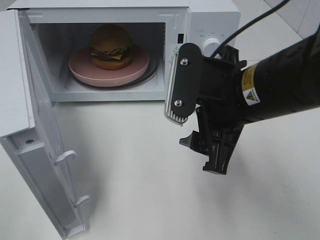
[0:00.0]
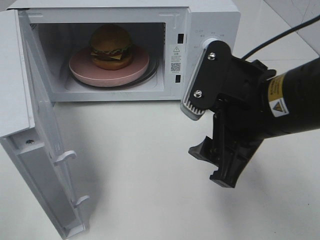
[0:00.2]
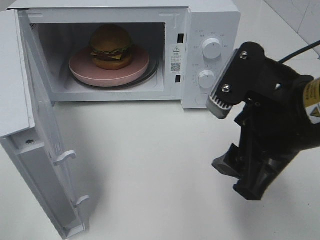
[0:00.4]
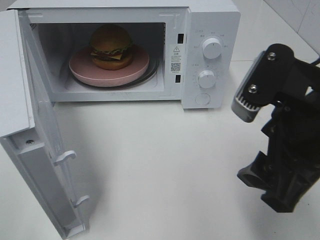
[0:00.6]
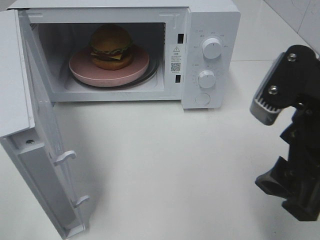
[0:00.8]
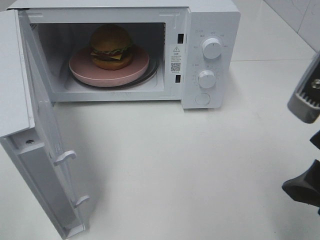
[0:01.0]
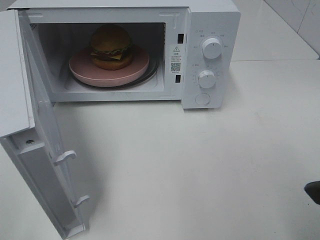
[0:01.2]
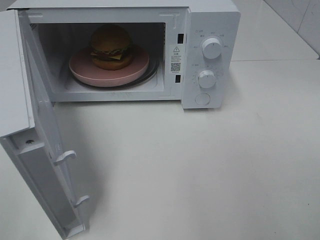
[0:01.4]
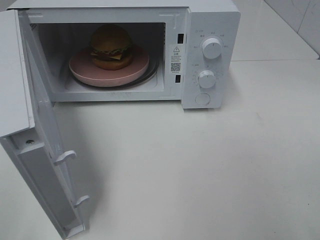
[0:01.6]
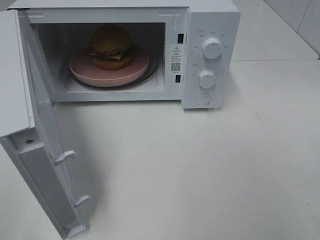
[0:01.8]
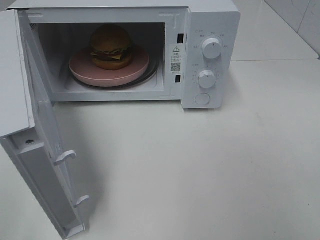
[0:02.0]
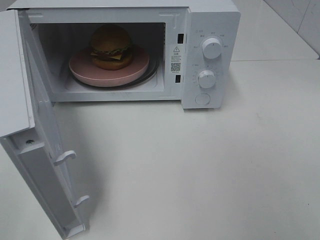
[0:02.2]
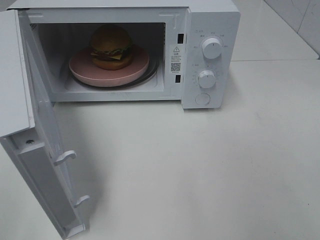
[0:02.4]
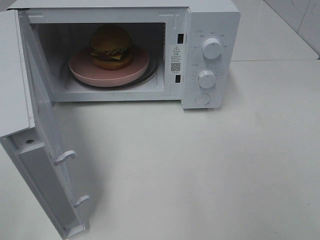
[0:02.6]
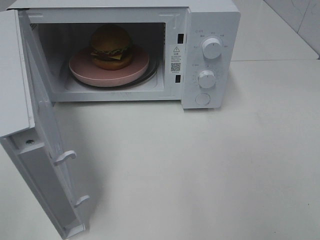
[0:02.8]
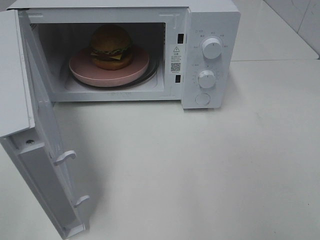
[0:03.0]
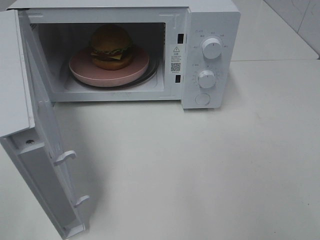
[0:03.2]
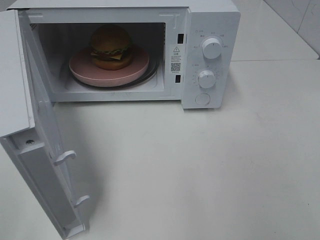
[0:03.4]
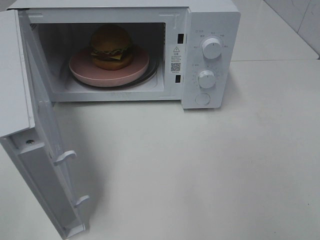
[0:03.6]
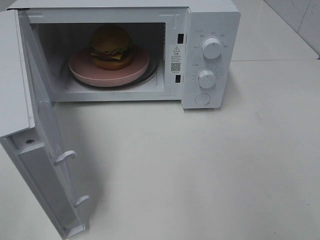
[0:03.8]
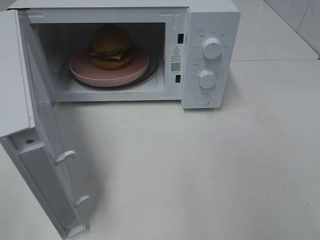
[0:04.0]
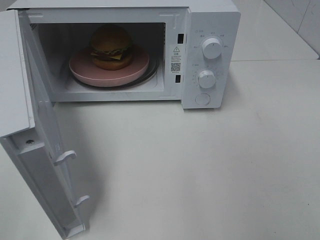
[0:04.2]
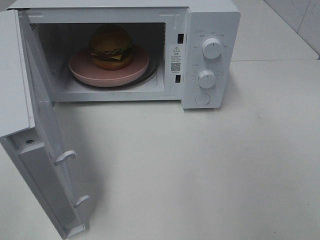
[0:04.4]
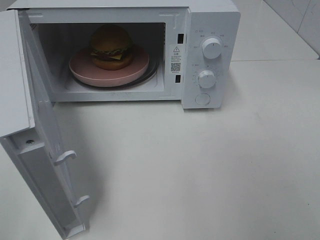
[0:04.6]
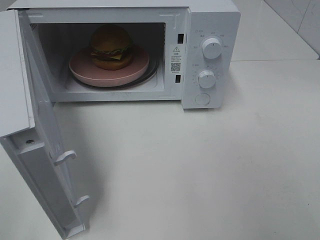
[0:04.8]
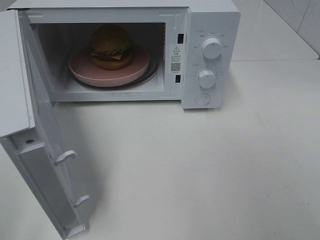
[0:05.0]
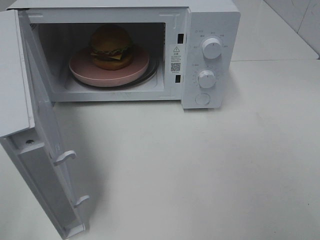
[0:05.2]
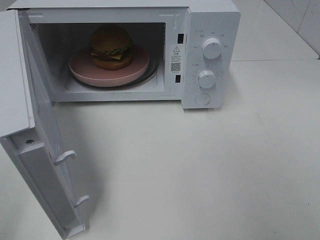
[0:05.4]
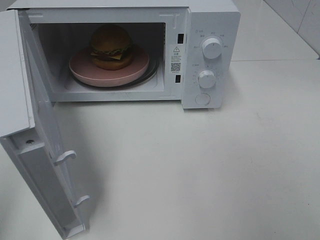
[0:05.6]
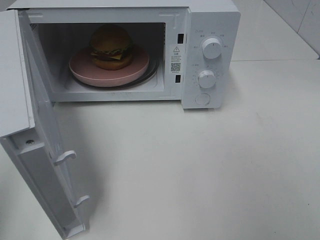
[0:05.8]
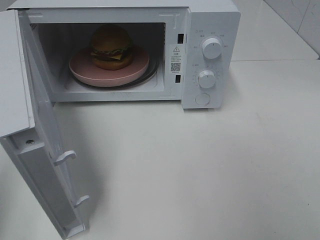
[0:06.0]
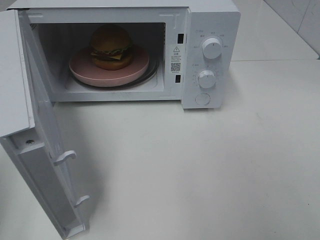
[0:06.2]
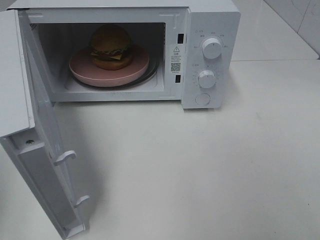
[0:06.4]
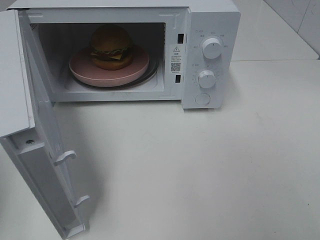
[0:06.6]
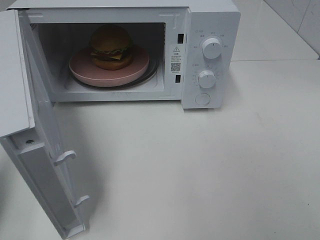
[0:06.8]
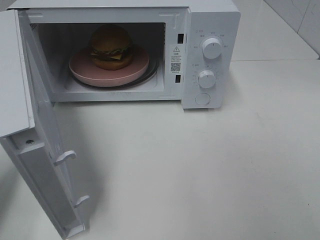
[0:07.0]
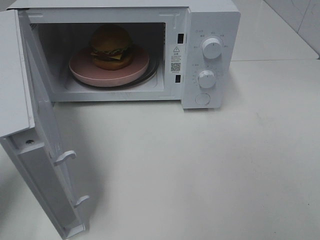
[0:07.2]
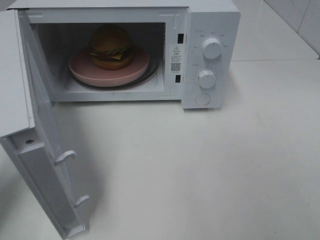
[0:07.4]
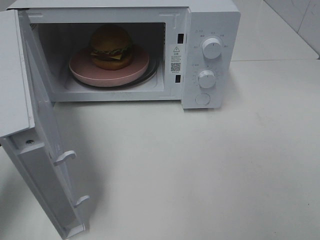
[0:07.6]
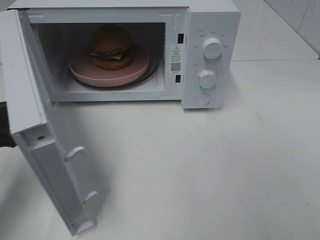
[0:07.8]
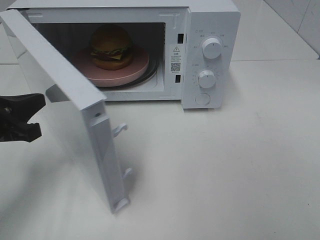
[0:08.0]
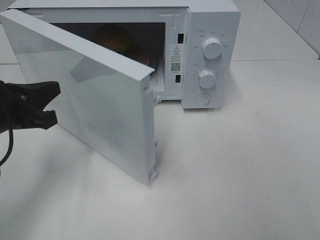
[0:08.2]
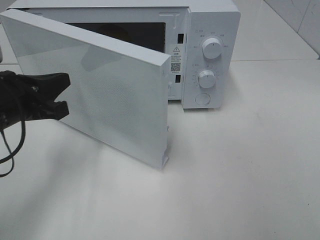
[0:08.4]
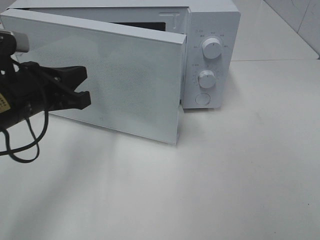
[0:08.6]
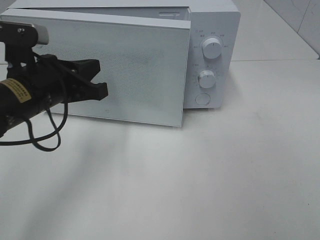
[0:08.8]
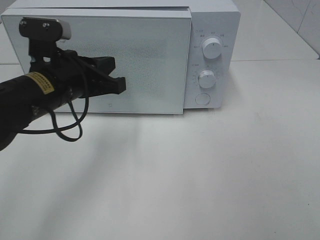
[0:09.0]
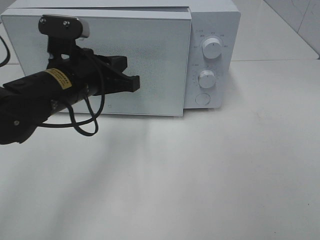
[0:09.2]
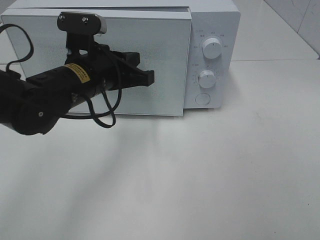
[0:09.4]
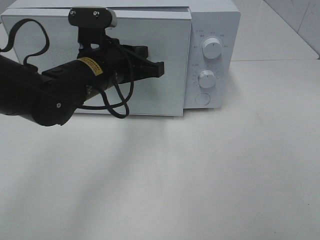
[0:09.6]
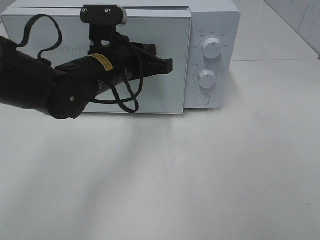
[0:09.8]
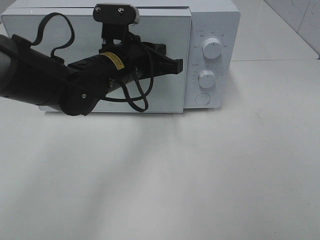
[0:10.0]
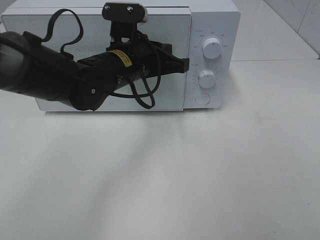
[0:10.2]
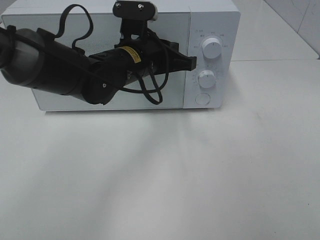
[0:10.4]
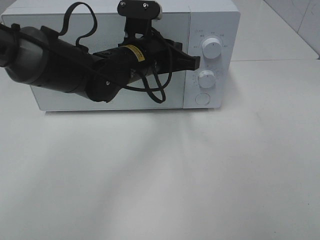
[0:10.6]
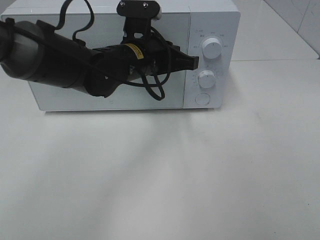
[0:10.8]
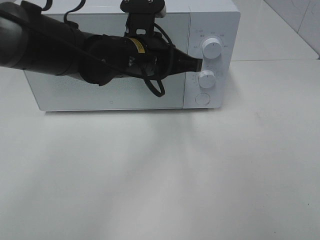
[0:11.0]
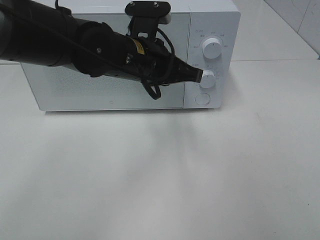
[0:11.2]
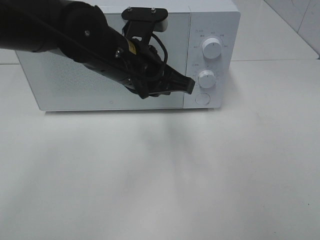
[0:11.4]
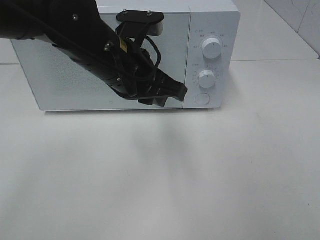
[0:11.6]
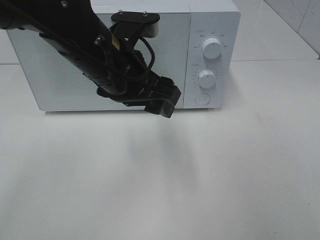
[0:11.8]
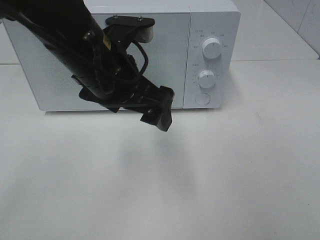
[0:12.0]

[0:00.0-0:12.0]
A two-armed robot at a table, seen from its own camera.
Task of the whole recording: Heat the burger.
Step, 0:00.0 to 0:10.8: Left hand: close the microwave door.
0:00.0 to 0:01.6: The right gripper shifts about 20 cm to the right and backward.
0:03.0 to 0:04.4: The two grippers keep their place.
0:06.0 to 0:07.6: The left gripper heads downward and forward, covering about 15 cm.
0:07.6 to 0:09.0: The left gripper moves to the right and forward, about 15 cm.
0:09.0 to 0:10.4: The left gripper heads to the right and forward, covering approximately 15 cm.
0:10.4 to 0:12.0: The left gripper shifts approximately 10 cm backward and upward, and opens its fingers.

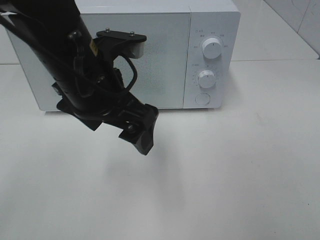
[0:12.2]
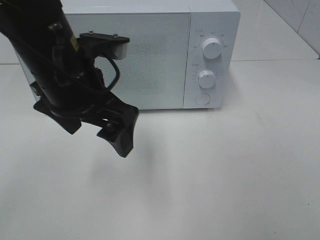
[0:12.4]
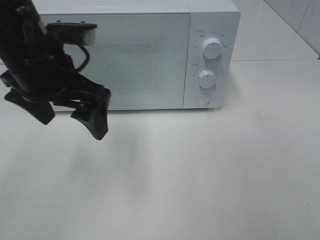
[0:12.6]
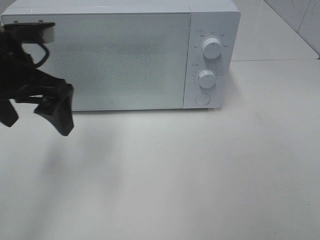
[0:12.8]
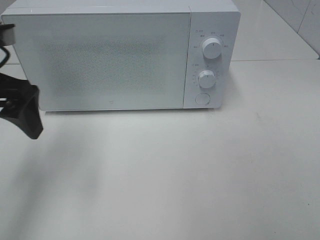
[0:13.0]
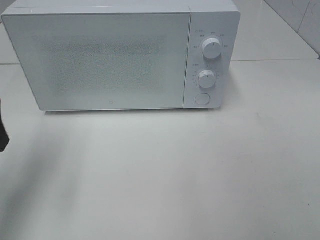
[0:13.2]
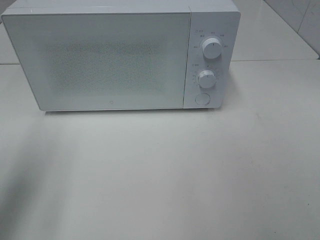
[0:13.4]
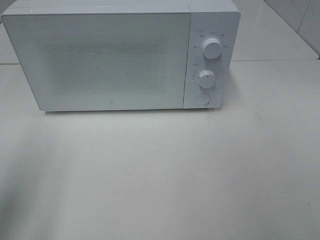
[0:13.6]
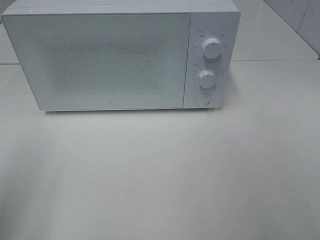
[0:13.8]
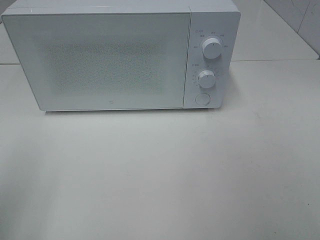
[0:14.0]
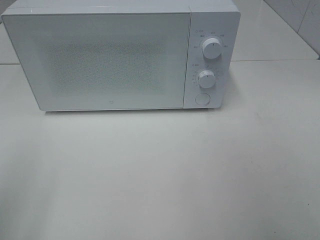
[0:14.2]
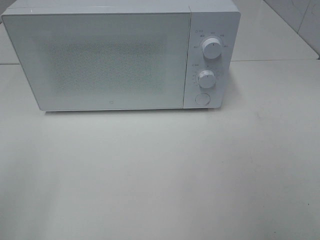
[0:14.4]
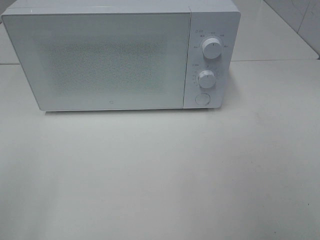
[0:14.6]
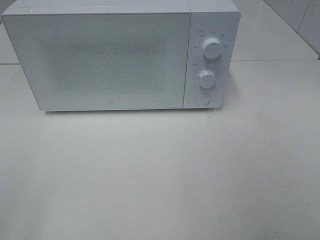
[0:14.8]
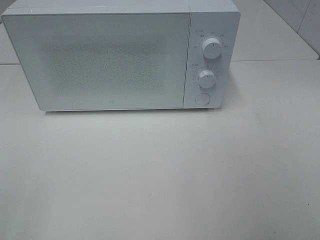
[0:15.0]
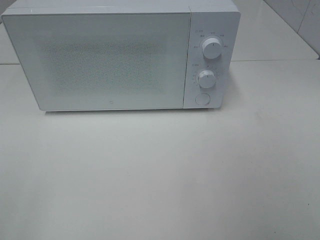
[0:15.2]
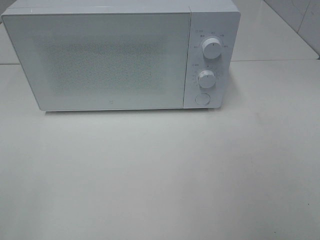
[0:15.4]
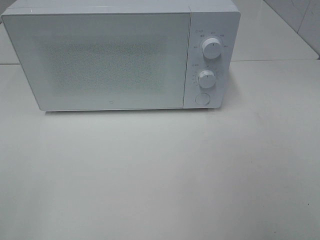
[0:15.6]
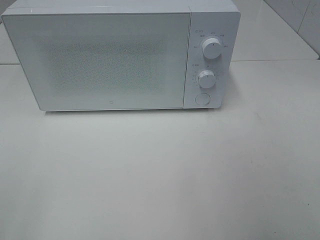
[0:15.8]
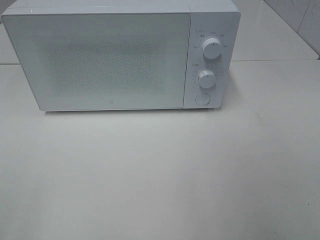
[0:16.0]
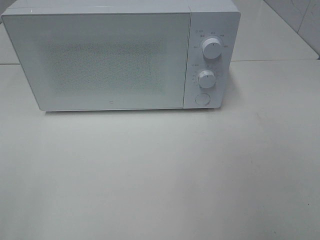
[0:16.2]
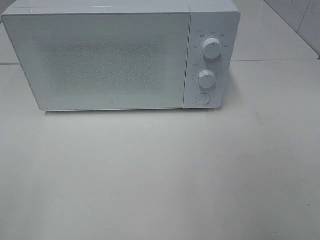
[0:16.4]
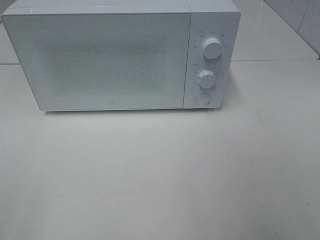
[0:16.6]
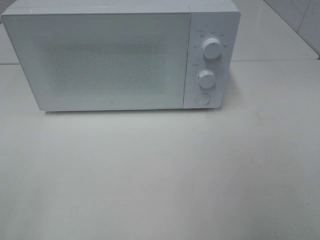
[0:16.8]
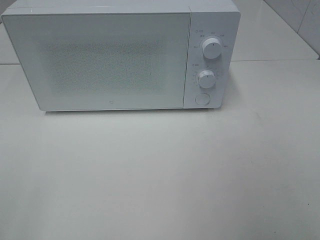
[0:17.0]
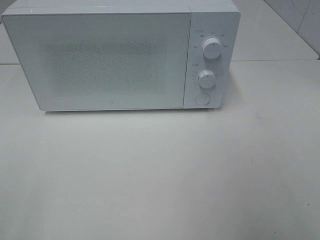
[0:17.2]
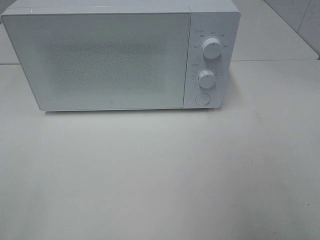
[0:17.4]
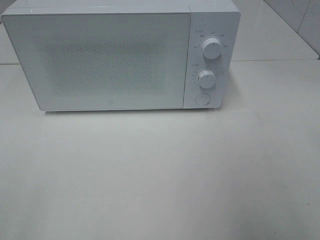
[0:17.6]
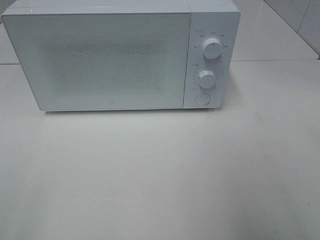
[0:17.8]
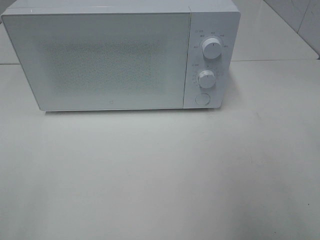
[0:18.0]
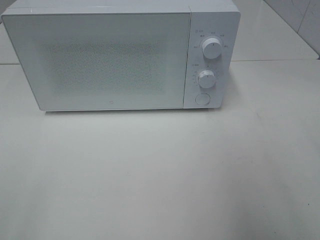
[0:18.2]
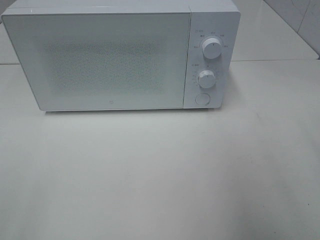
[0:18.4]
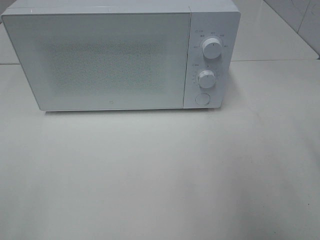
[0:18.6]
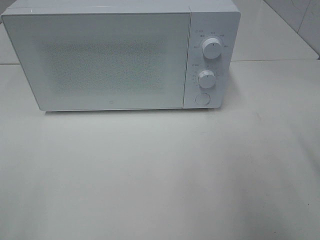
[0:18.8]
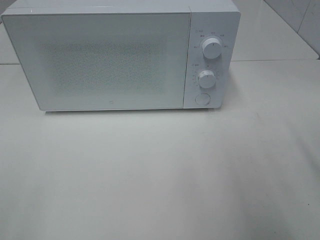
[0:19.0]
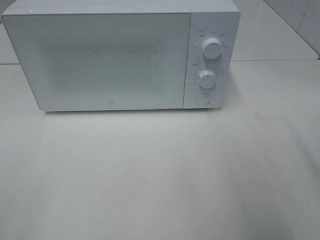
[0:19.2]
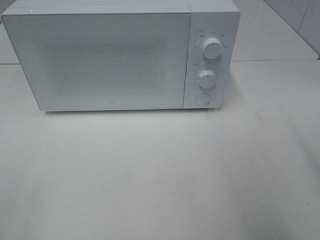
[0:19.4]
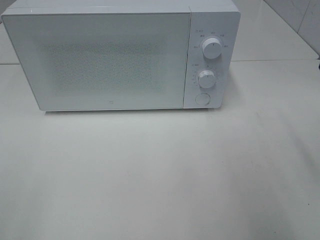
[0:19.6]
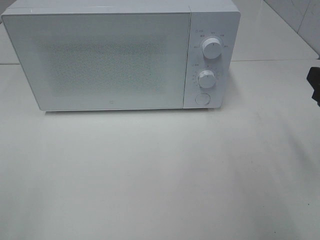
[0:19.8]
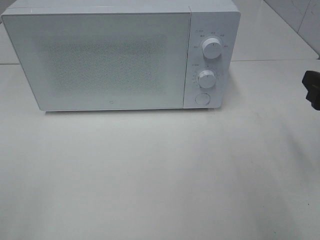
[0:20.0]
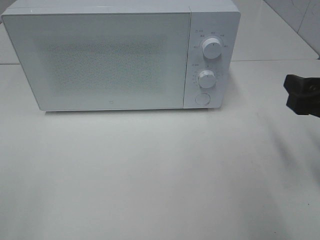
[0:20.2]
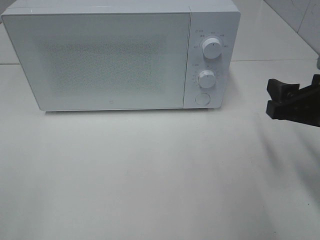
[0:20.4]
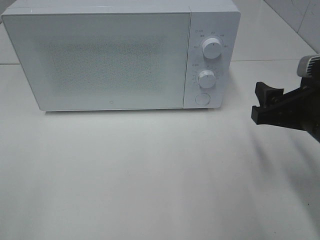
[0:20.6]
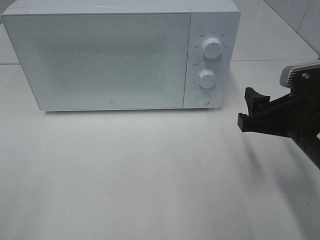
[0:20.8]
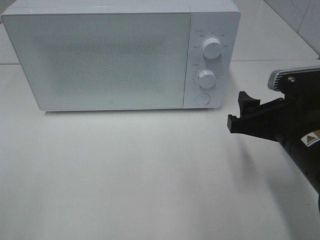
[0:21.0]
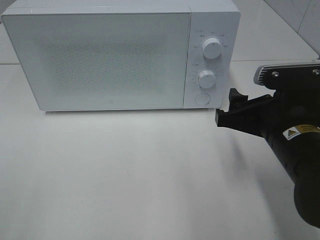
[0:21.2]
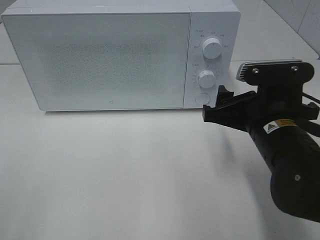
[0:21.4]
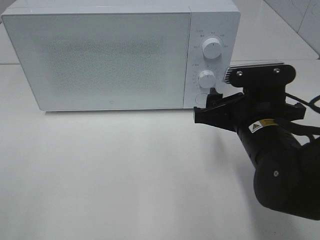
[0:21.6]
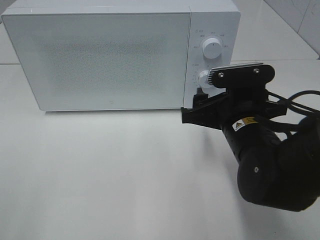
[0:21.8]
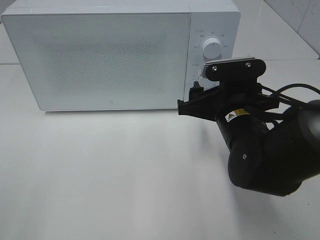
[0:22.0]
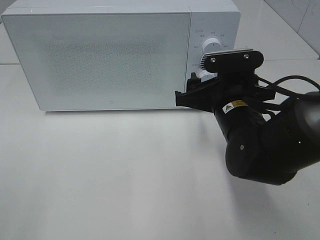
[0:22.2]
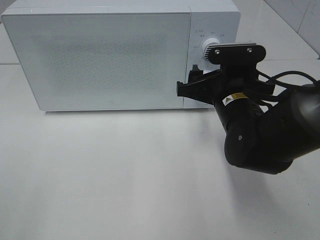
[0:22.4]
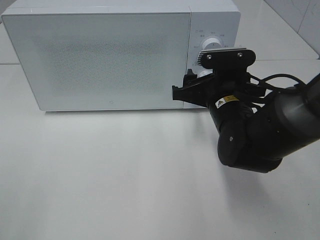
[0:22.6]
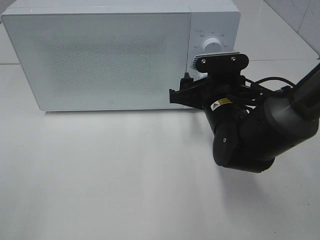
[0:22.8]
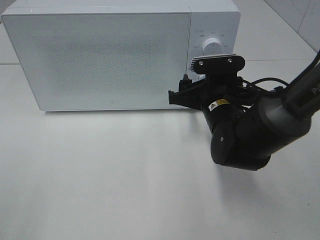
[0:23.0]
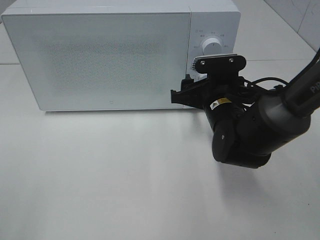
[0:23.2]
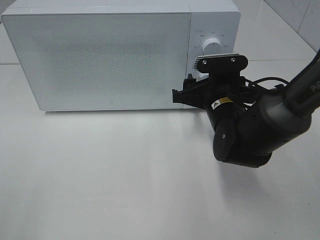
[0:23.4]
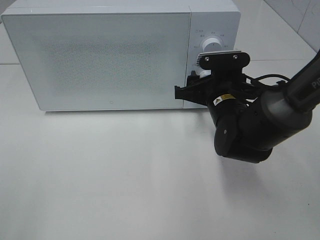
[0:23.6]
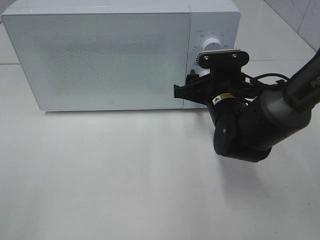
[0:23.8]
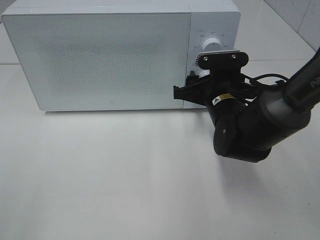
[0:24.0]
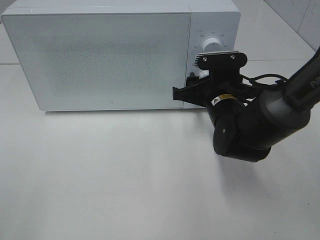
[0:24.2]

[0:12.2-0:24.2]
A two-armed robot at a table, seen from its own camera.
Task of the whole recording: Heat the burger.
0:12.2 to 0:13.8: The left gripper goes approximately 25 cm to the left and backward.
0:13.8 to 0:15.2: The left gripper moves backward, roughly 10 cm.
0:15.2 to 0:16.6: Neither gripper changes place.
0:19.8 to 0:21.2: The right gripper moves to the left and downward, some 15 cm.
0:21.2 to 0:22.6: The right gripper moves forward and to the left, approximately 10 cm.
0:22.6 to 0:24.2: The grippers make only small movements.
